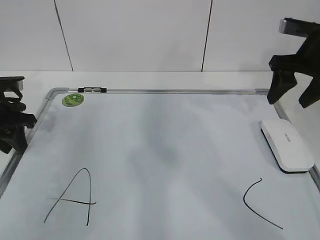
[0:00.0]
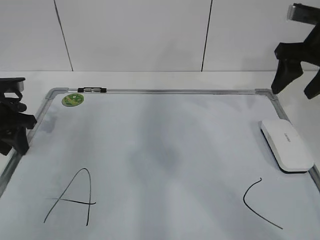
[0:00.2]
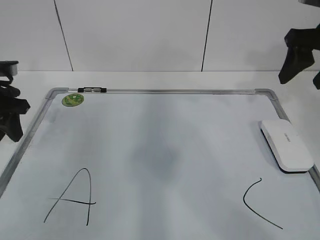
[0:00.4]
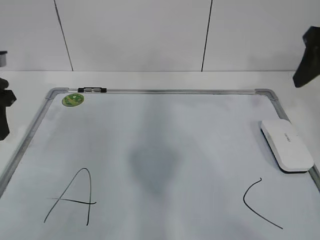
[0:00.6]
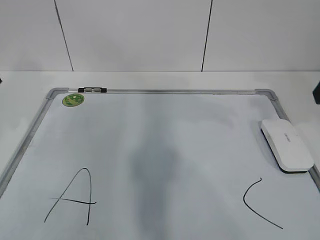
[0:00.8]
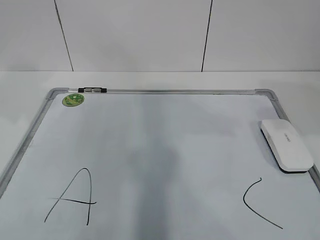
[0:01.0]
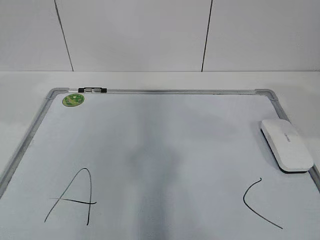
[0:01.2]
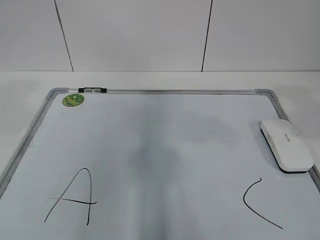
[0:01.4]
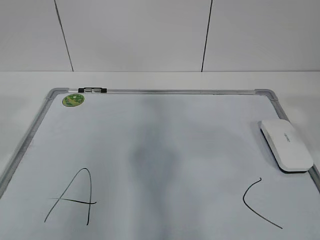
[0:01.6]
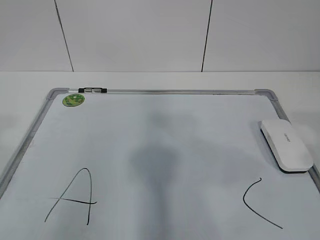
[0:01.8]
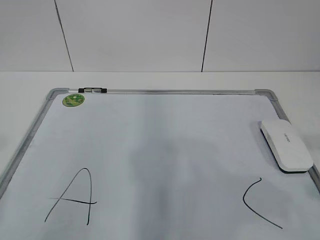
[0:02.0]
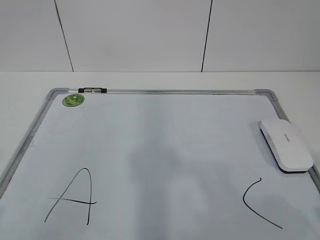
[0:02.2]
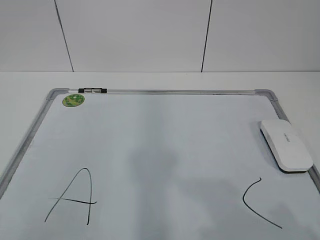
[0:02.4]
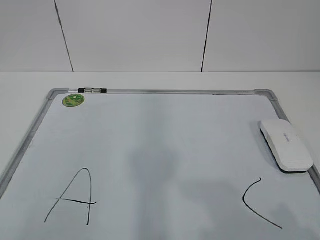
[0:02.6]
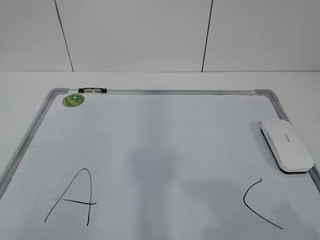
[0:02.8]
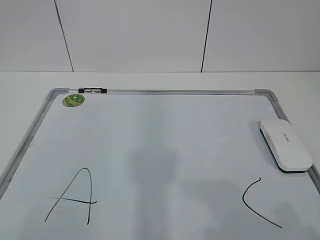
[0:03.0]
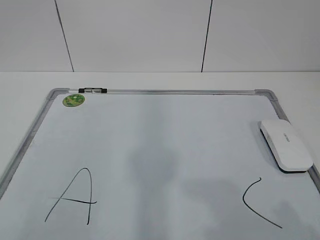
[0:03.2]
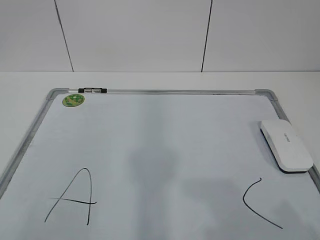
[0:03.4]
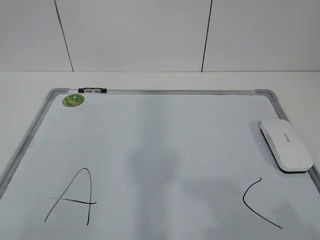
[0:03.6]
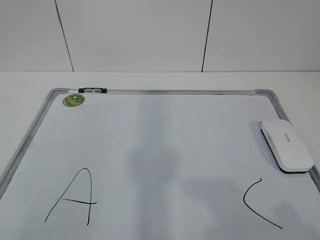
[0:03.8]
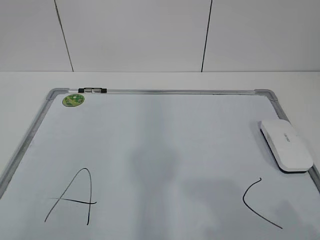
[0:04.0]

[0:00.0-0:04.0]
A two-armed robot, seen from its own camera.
Task of the whole recording: pick up the eraser on the blackboard and erase the letter "B".
0:00.0 to 0:01.4: The left gripper moves upward and backward, roughly 30 cm; the right gripper goes some 25 cm backward and upward.
0:01.4 to 0:02.6: Both grippers move backward and downward, roughly 20 cm.
0:02.6 to 0:04.0: Both grippers stay about where they are.

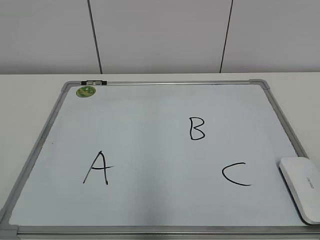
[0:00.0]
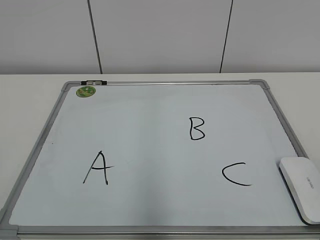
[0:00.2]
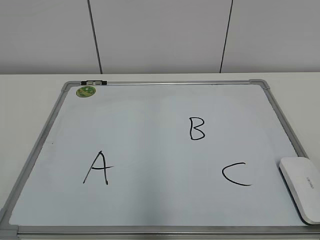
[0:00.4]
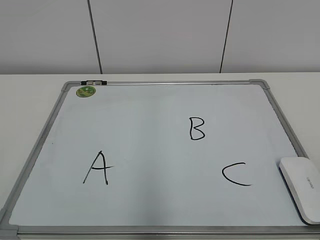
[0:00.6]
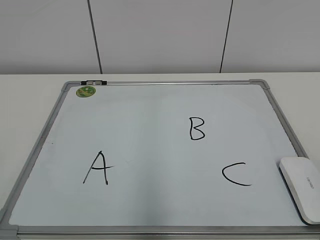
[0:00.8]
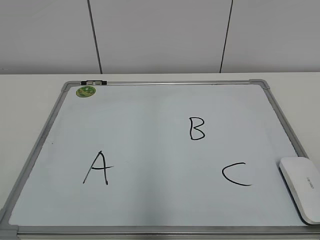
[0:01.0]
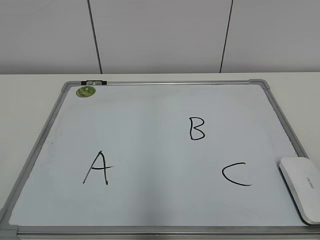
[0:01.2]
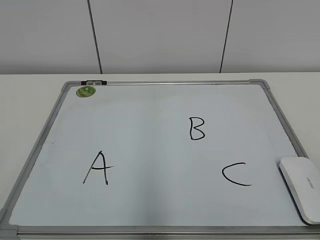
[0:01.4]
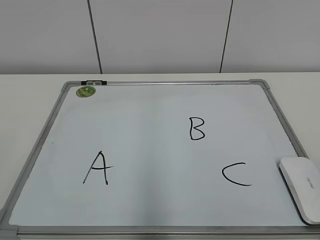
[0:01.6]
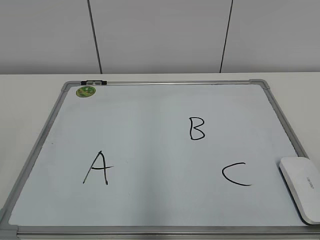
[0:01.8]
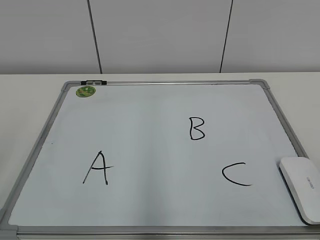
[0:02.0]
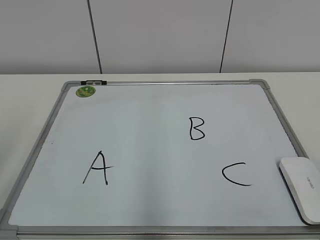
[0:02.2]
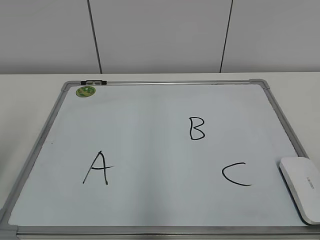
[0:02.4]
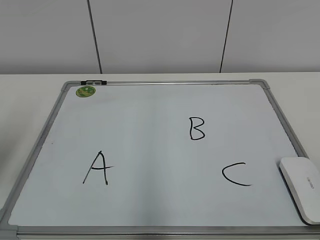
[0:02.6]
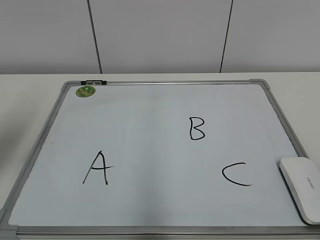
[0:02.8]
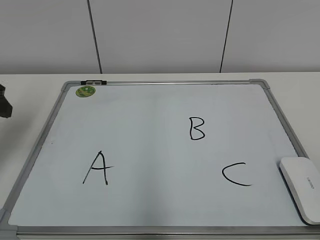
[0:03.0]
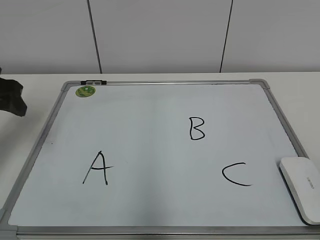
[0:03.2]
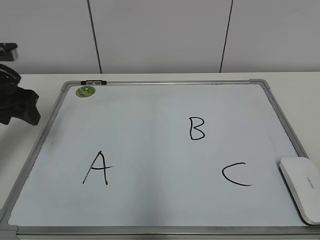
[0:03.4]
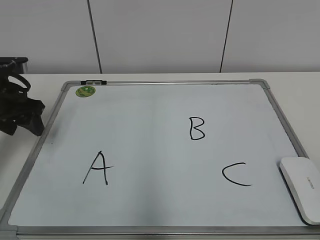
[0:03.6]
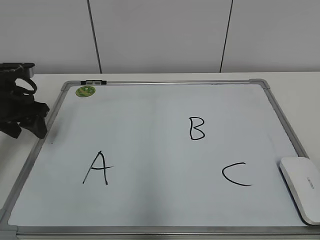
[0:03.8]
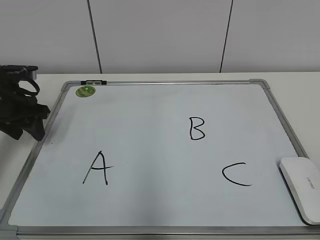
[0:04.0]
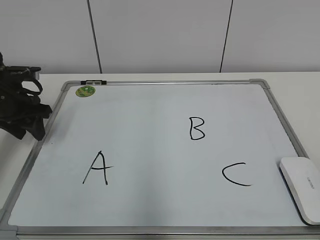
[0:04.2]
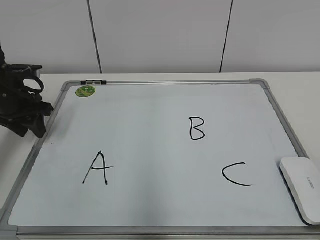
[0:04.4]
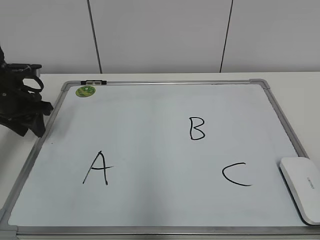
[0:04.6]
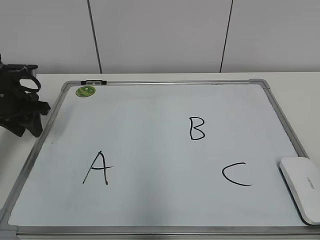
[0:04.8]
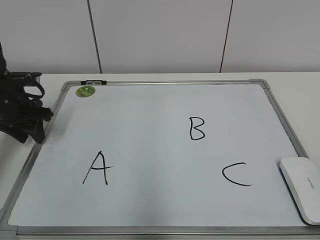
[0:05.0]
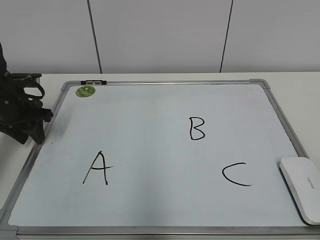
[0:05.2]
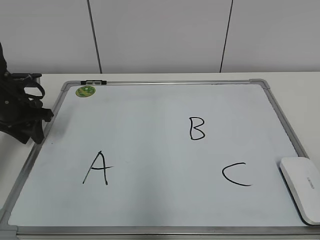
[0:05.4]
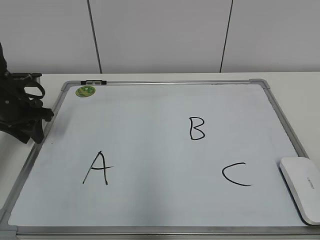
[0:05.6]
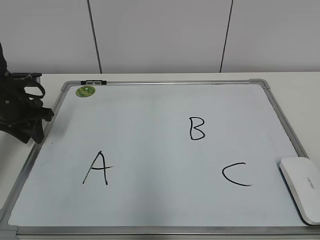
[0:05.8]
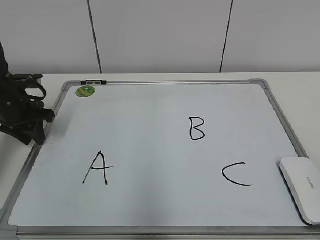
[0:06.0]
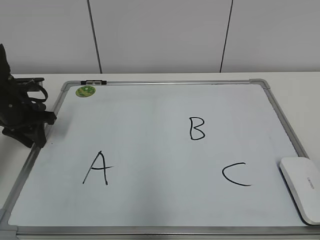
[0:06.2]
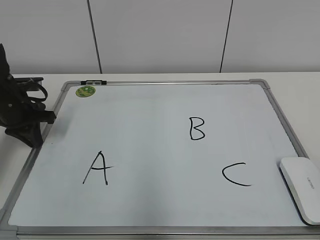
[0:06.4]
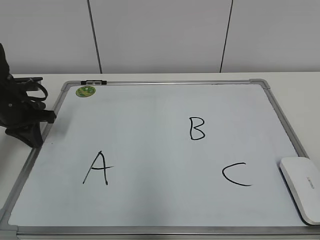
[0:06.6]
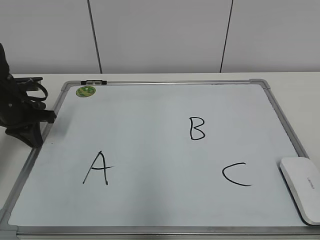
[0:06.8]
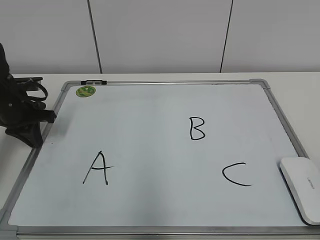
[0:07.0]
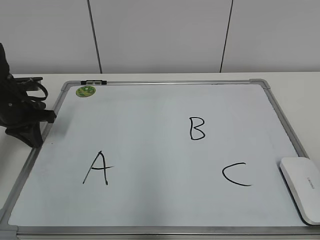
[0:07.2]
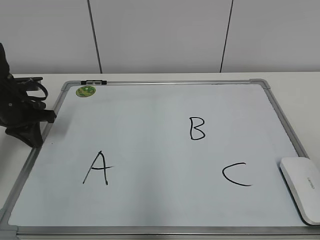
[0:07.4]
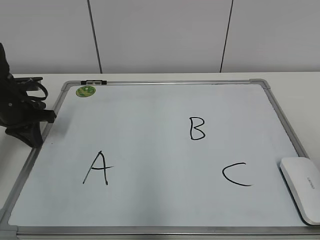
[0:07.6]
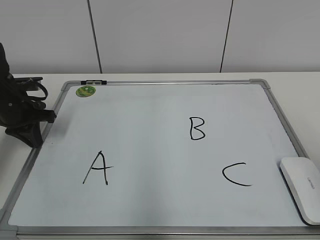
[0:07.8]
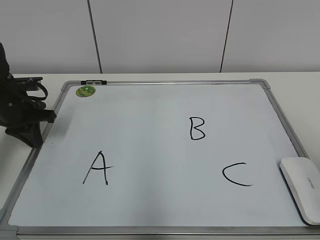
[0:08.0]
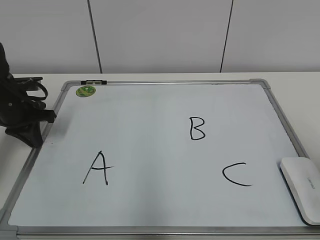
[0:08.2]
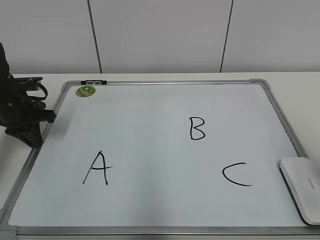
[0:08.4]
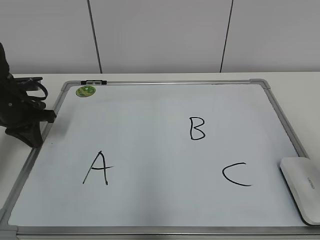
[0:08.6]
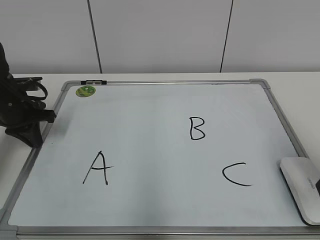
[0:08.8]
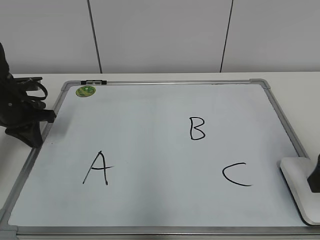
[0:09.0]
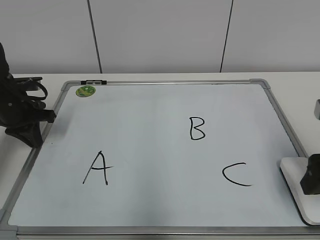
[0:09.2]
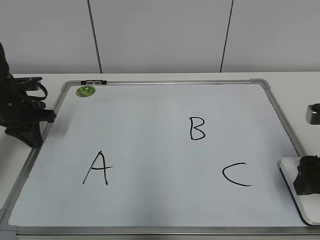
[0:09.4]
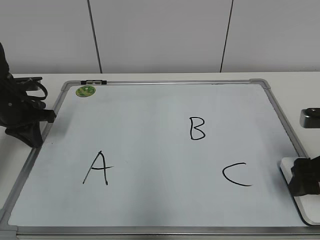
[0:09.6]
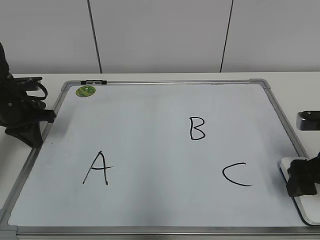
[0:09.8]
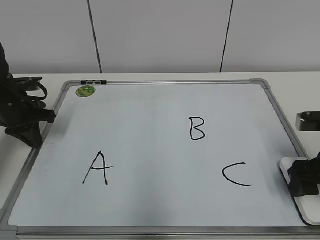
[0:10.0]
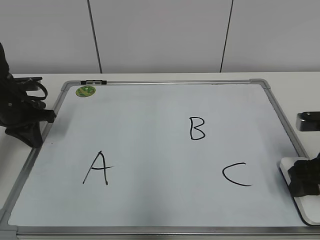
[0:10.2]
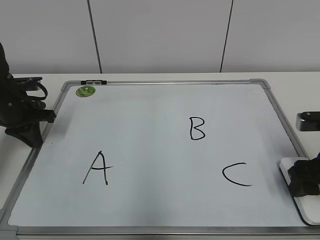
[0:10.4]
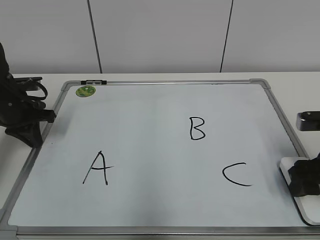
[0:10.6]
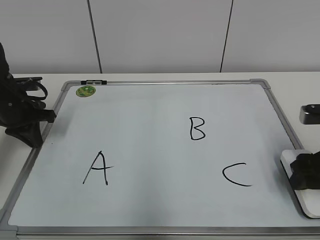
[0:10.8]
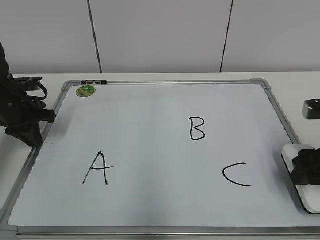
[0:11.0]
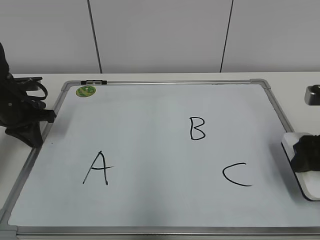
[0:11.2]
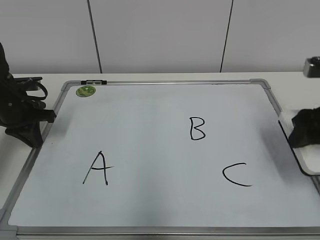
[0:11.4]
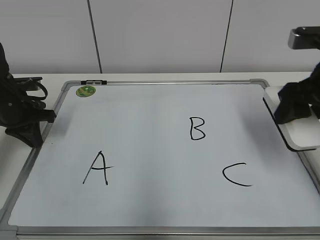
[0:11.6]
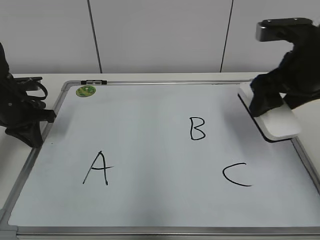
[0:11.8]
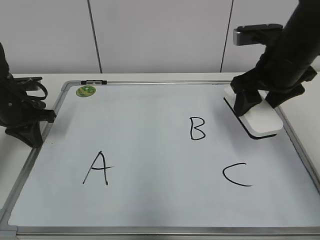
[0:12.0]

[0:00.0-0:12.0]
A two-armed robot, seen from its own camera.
Task of the whole recording: pick up the eraser on the blackboard and erase the letter "B".
Step, 0:00.0 to 0:07.0: Hold the drawing board steady with your left hand.
0:01.6 to 0:03.0: The left gripper moves forward, about 30 cm.
0:03.0 to 0:04.4: The left gripper travels forward and downward by some 15 cm.
0:04.4 to 0:06.0: There are only small adjustments of the grippers.
0:06.0 to 0:07.6: The left gripper closes its fingers.
0:07.6 to 0:09.0: The right gripper shifts approximately 15 cm forward and downward, and opens up.
0:09.0 to 0:10.4: The right gripper goes roughly 5 cm downward, and closes up.
0:10.4 to 0:12.0: The right gripper is displaced upward, forward and to the left by about 15 cm.

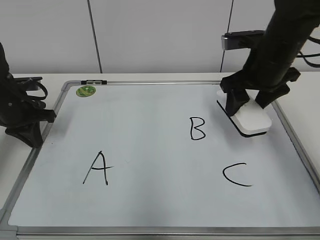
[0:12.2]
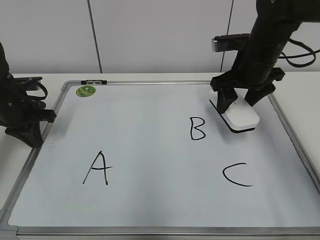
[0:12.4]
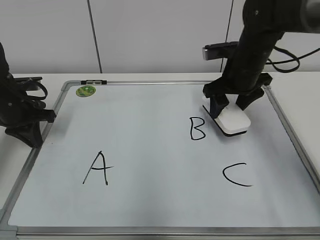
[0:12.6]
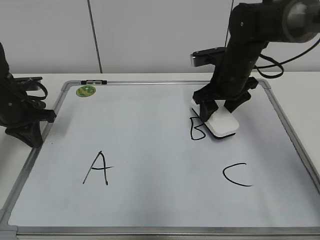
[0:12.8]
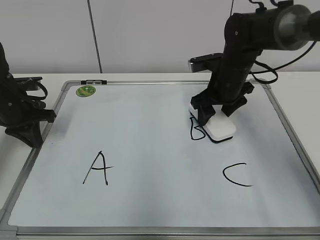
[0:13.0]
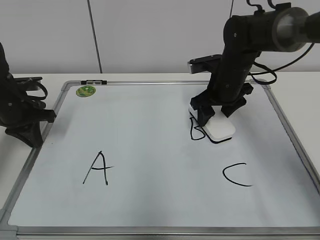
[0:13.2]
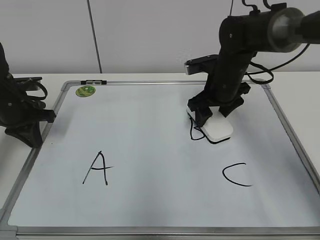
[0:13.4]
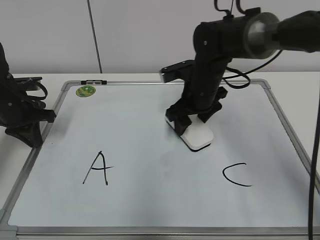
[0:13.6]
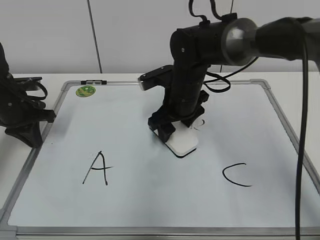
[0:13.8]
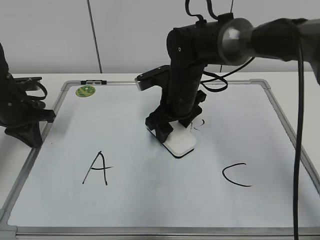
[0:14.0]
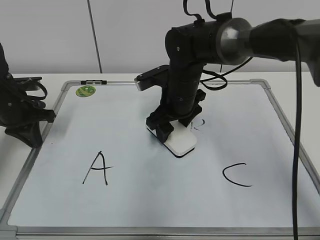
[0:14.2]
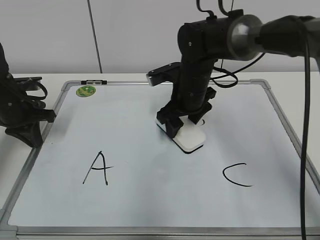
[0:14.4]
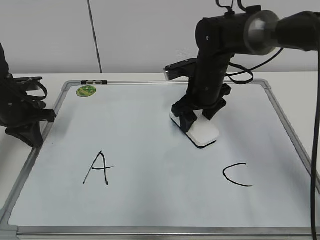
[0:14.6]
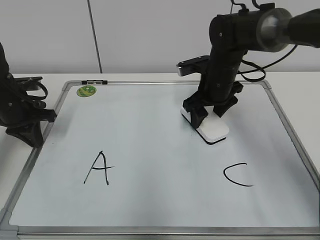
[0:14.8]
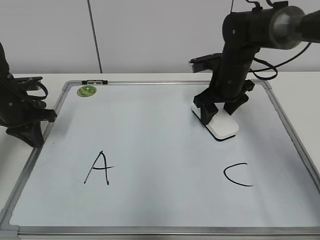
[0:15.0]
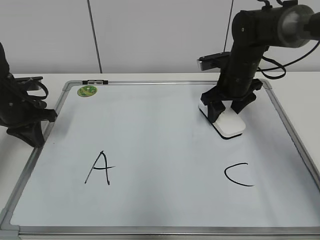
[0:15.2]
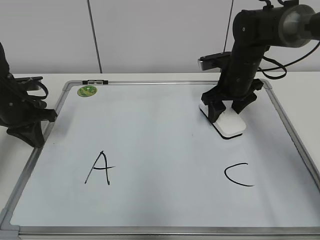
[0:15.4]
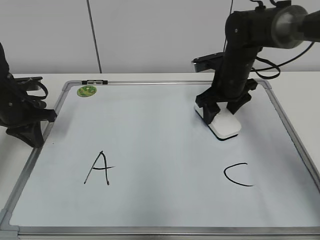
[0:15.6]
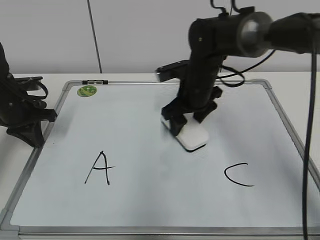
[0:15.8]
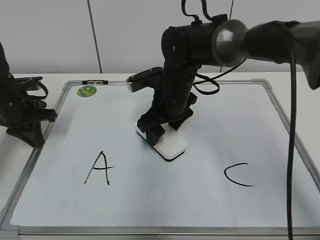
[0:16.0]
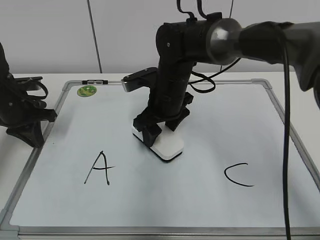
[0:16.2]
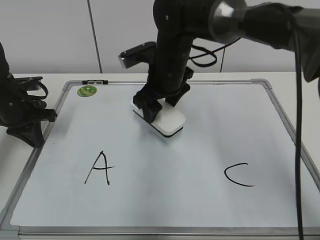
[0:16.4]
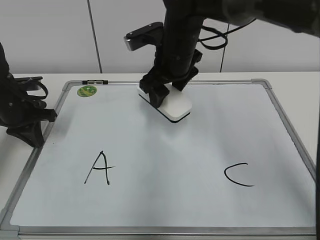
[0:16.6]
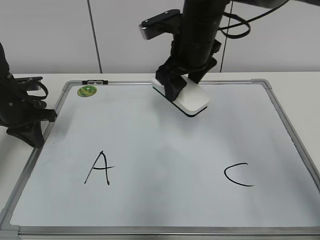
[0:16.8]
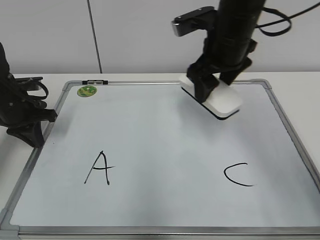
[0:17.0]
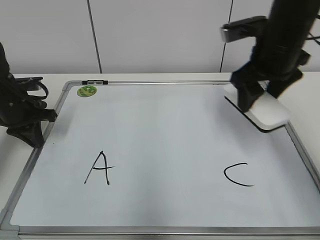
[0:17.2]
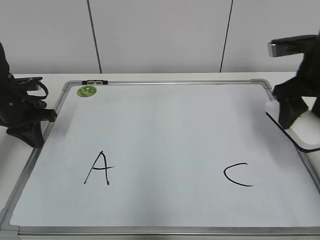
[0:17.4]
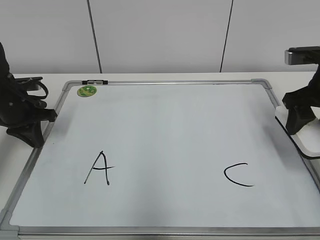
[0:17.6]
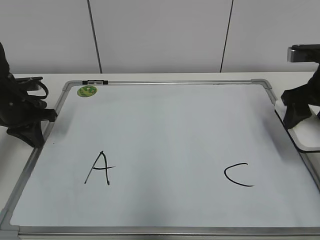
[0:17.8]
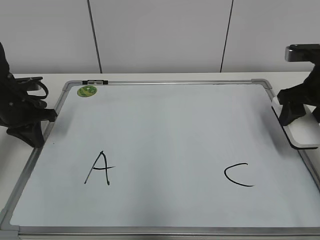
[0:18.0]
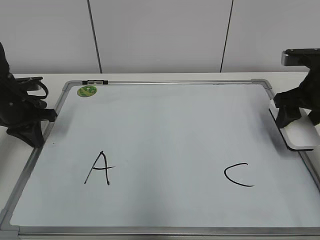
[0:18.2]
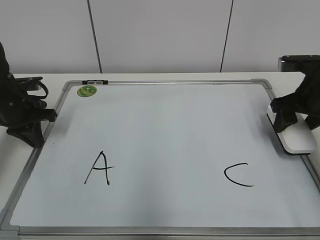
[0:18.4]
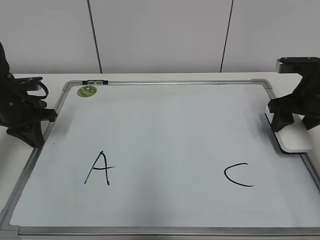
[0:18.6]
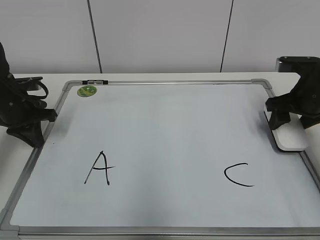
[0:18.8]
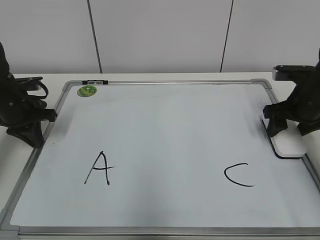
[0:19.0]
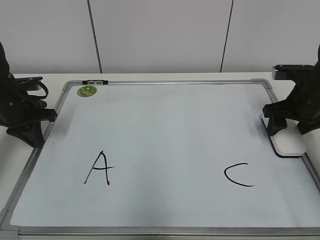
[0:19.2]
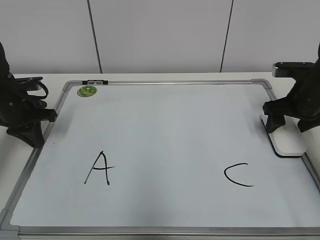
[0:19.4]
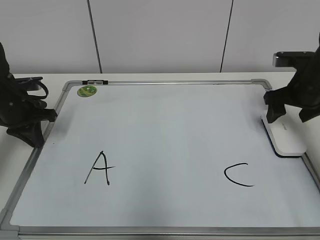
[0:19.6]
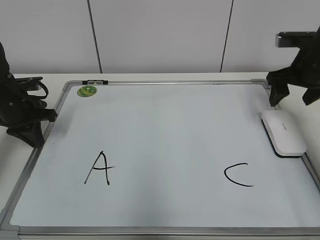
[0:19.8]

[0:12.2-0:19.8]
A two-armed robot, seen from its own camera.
Task of the whole recording: pick up the eraser on the blackboard and erase the letter "B".
Step, 0:12.2 to 0:16.0: Erase the letter B with your right hand.
Step, 0:16.2 to 0:19.2: Put down the eraser with your right hand.
0:12.2 to 0:13.8: The right gripper heads to the left and downward, covering roughly 15 cm.
0:13.8 to 0:15.2: The right gripper travels to the right and forward by about 15 cm.
0:15.2 to 0:16.8: The right gripper travels to the left, upward and backward by roughly 15 cm.
0:16.8 to 0:18.2: The right gripper moves to the right, about 20 cm.
0:18.2 to 0:19.8: The right gripper opens its fingers.
